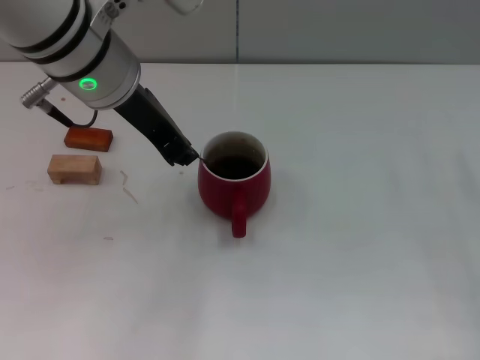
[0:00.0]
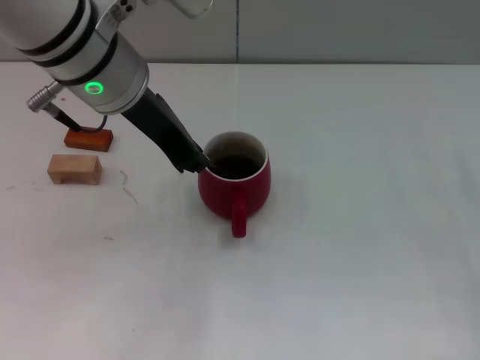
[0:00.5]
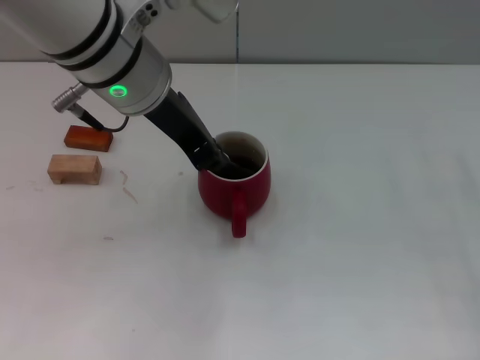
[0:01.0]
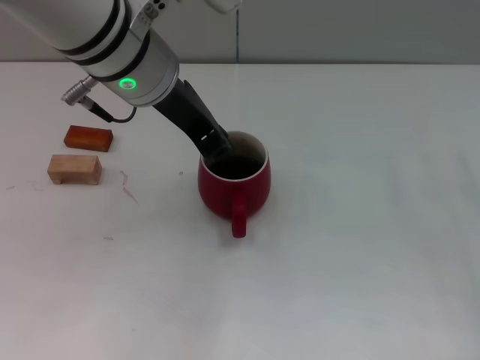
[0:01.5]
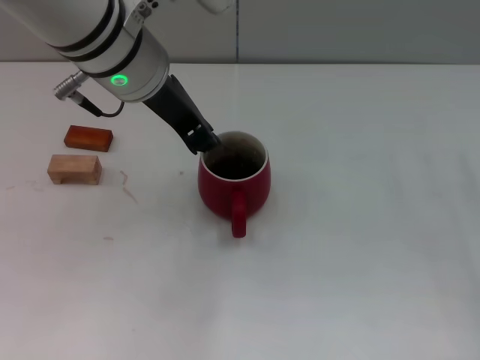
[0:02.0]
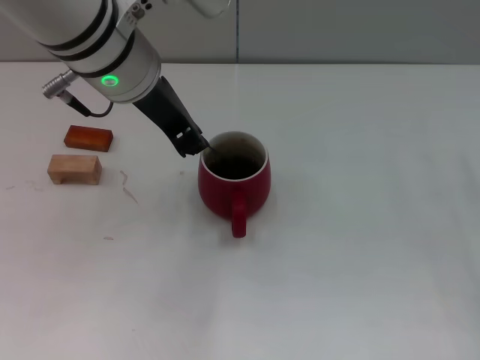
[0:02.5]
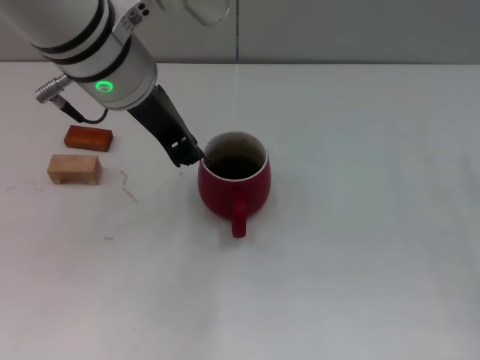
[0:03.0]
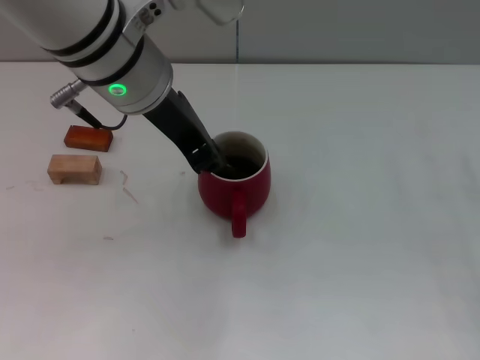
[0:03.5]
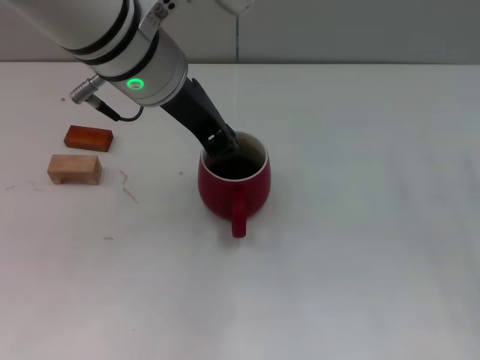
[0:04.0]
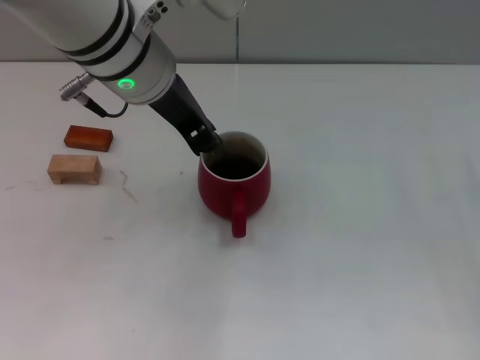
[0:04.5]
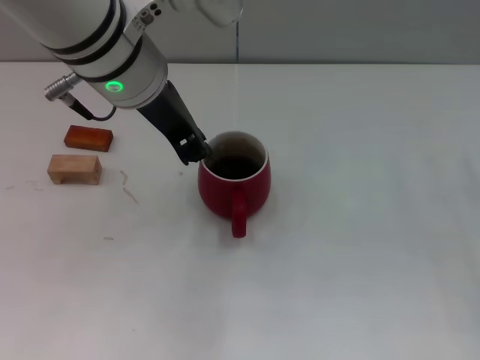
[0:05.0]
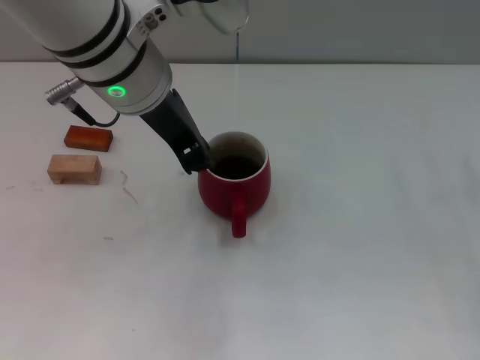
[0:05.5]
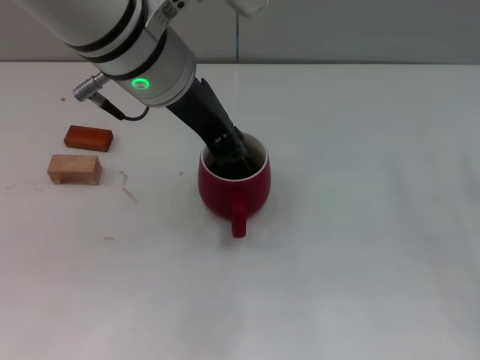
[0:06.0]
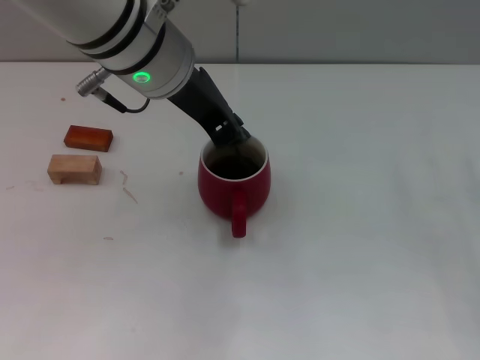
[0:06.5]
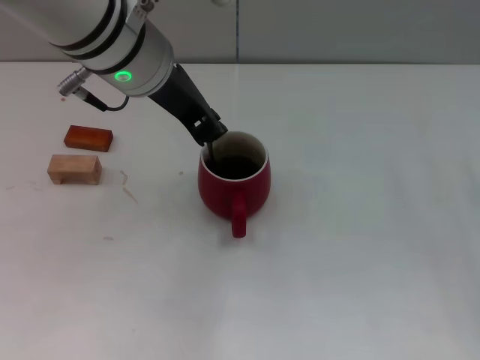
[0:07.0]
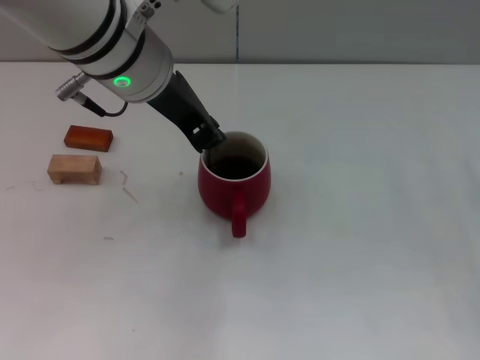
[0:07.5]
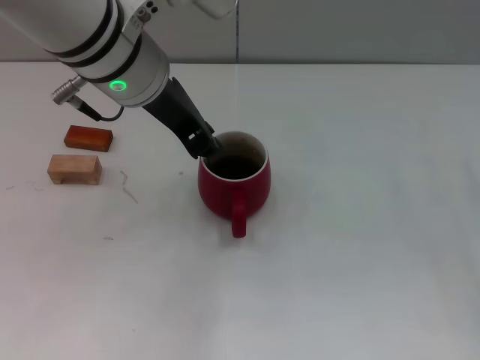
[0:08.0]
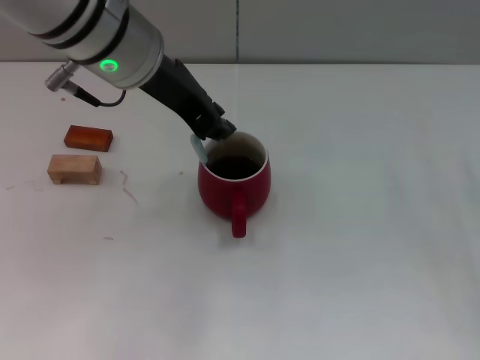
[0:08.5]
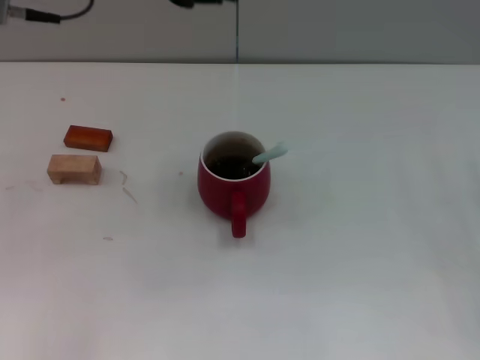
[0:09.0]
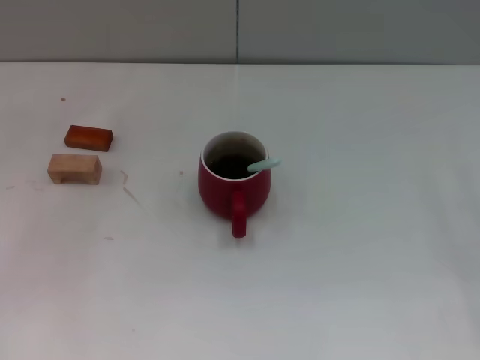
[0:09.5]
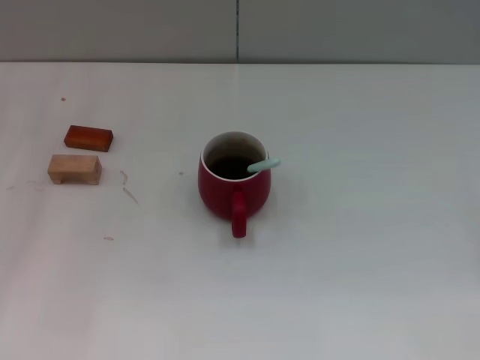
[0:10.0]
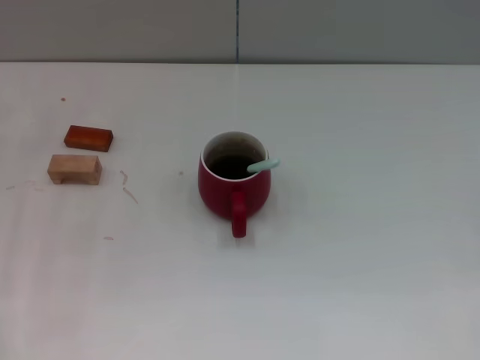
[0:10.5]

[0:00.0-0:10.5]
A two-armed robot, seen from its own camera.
Task of the whole recording: Move the red cup to the center, lift the blue spoon, stir it three times in the cup, and put the spoon into the cup.
Step, 0:00.0 to 0:08.5: Stir the coffee in the cup with the left gripper.
0:00.0 to 0:08.5: The grippers make only small movements.
0:08.5 to 0:10.5: The right gripper goes some 5 cm to the right; the left gripper heads to the left and downward, covering some 25 cm, and opens.
